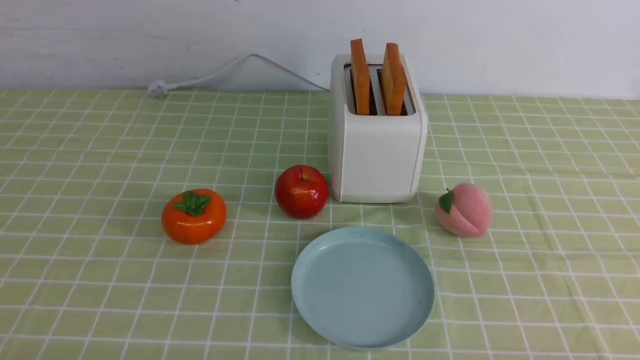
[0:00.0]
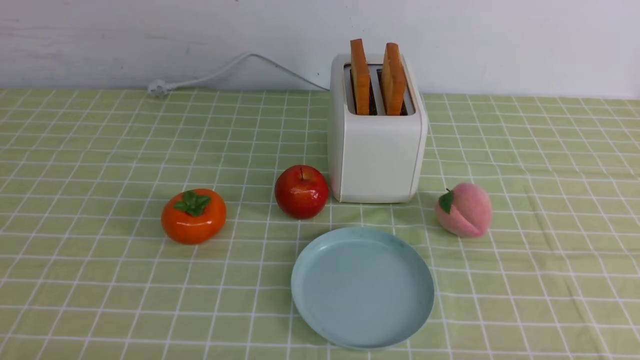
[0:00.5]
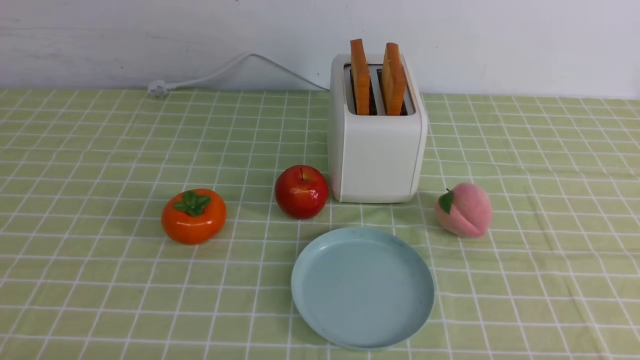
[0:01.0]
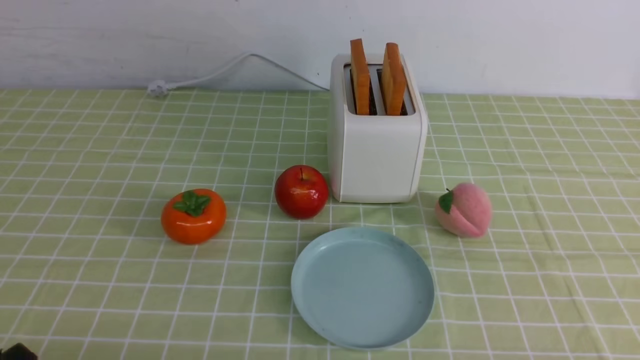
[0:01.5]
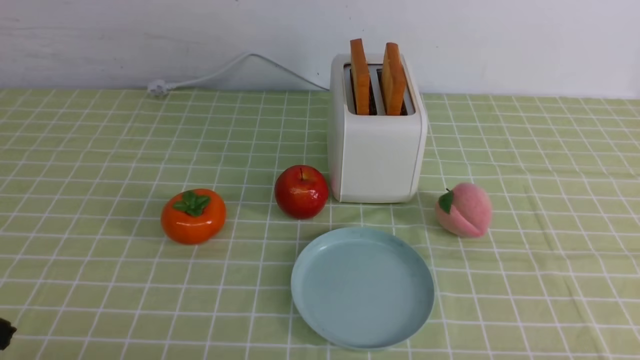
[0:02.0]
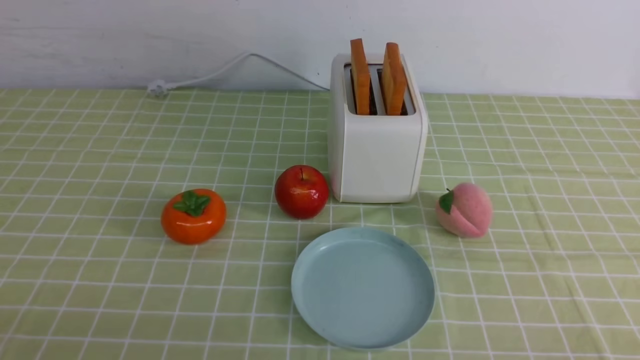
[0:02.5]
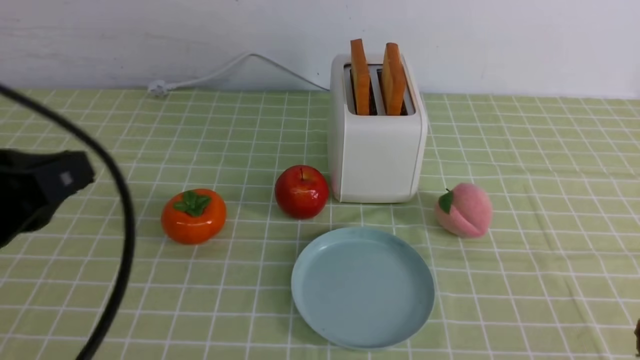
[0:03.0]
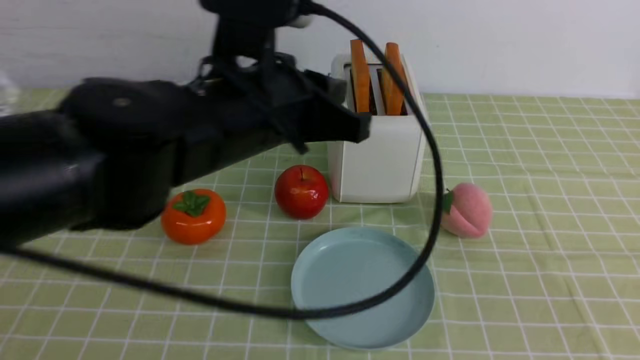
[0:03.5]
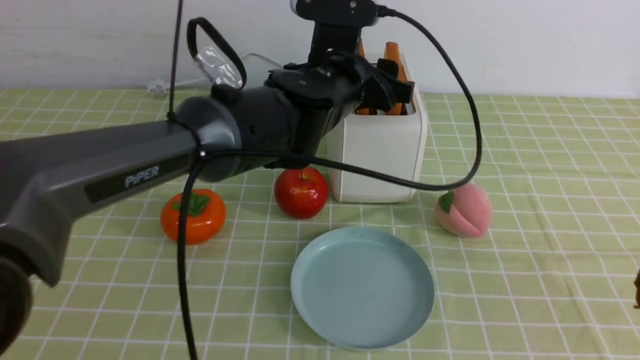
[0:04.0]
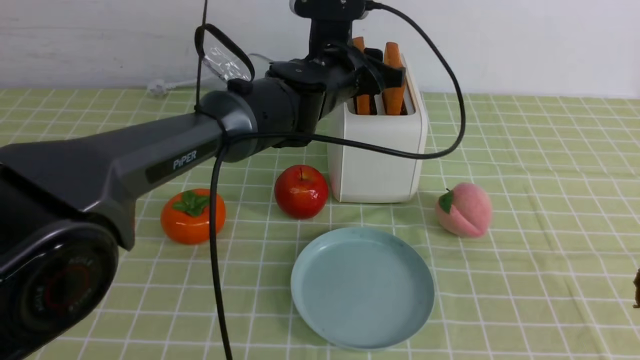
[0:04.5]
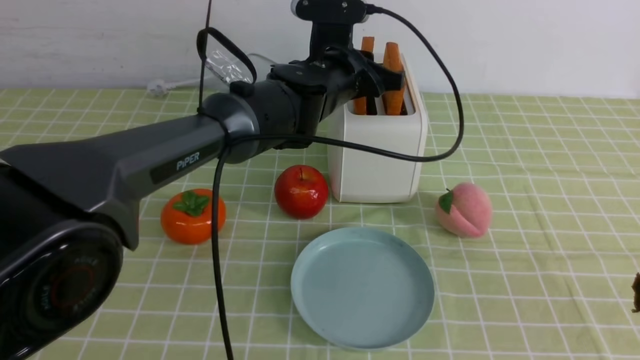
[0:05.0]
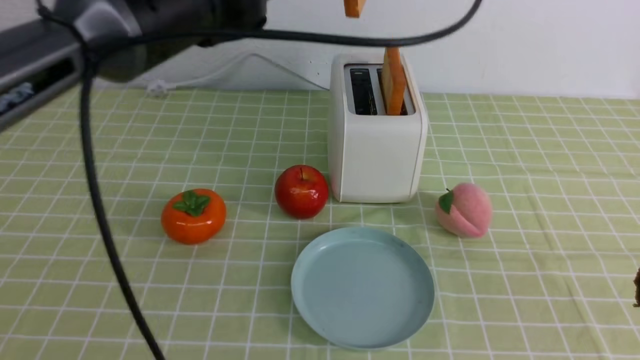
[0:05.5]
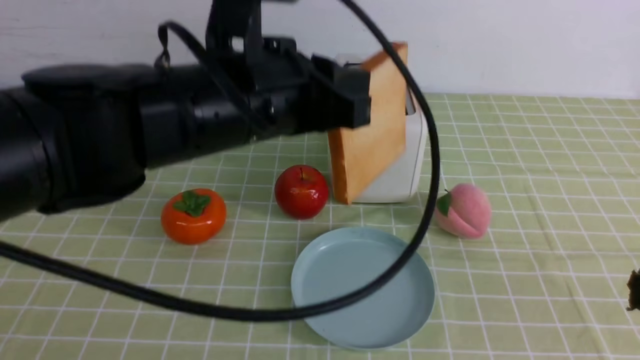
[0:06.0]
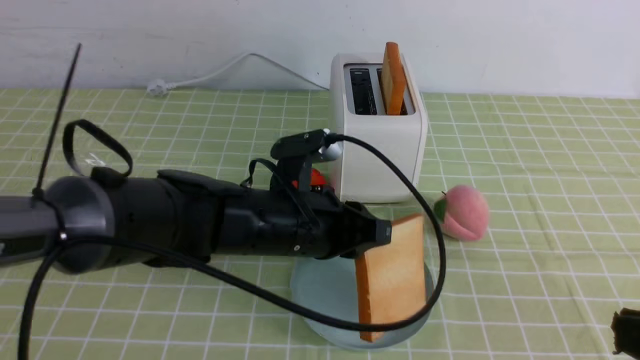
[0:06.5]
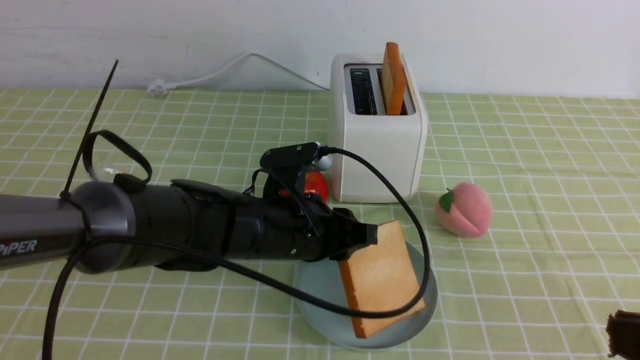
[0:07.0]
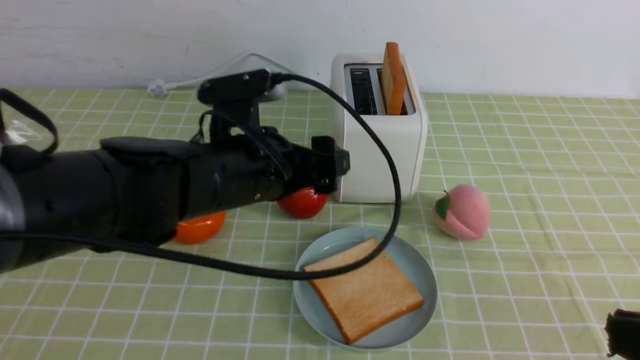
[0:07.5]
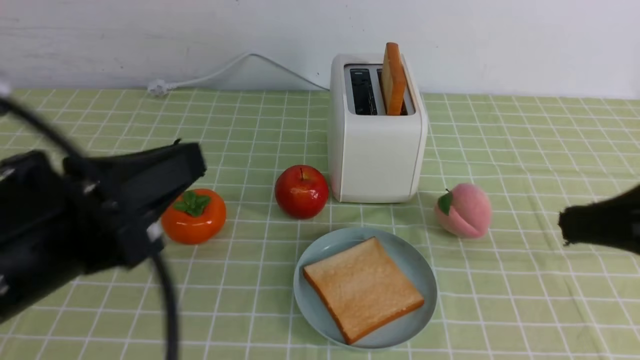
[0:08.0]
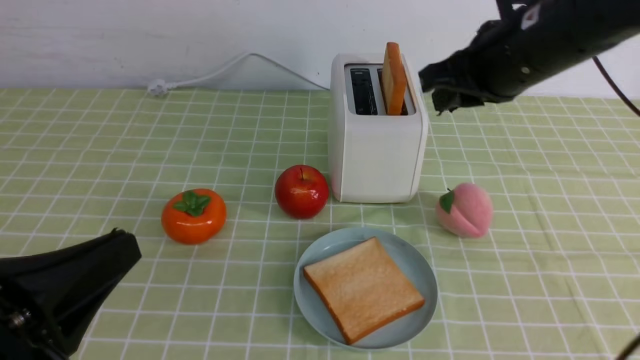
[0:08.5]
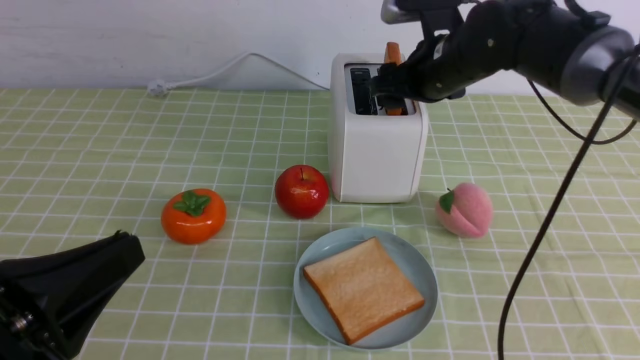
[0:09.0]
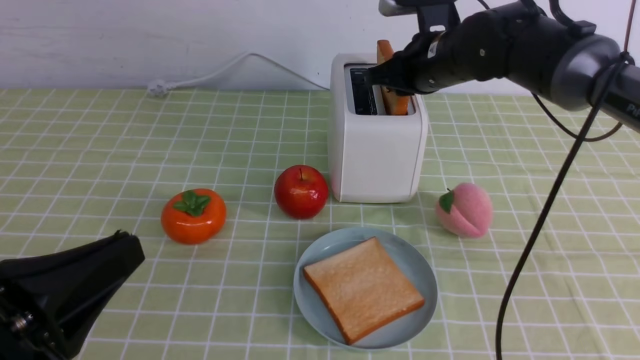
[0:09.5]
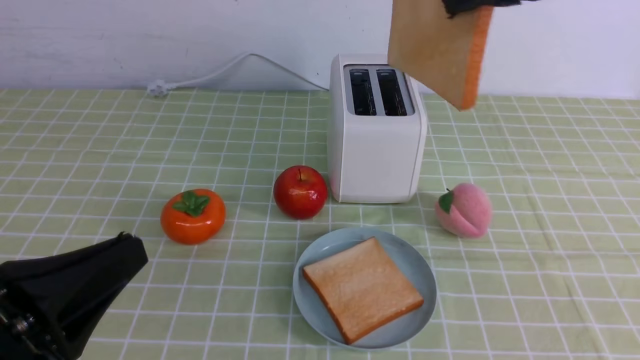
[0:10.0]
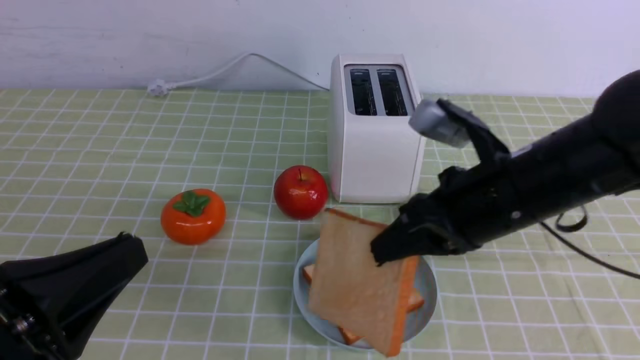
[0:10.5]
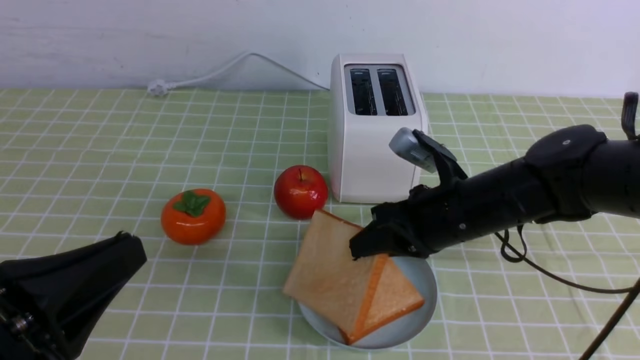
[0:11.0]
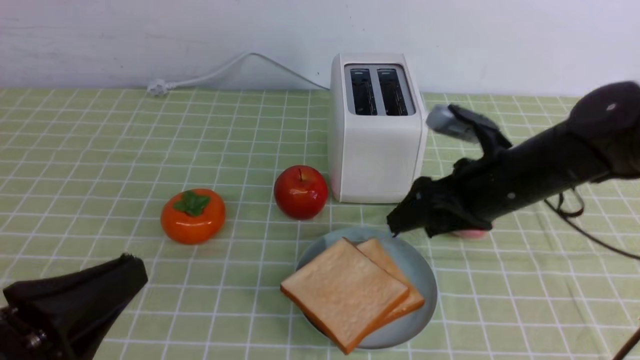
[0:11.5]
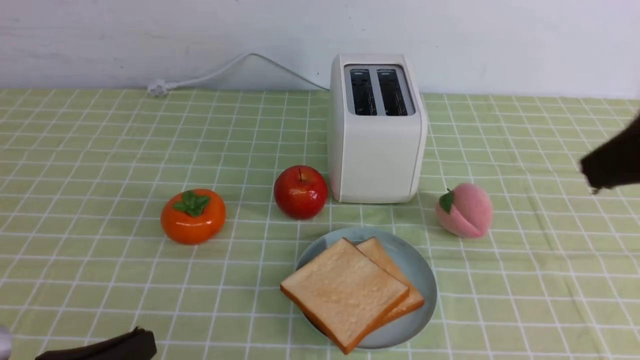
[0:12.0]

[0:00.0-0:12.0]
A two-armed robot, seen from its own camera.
Task of the whole recording: take toasted bread from bread machine on green coffee tablecloth place on plate.
Step, 0.0 to 5.0 s: use the left arm to take out a slice of bread.
Step, 5.5 to 7.0 s: use the left arm to put a slice of bread into the empty plate.
Step, 8.0 to 9.5 s: use the right arm to take out a slice of bread.
Step, 10.0 to 11.5 s: use the right arm to put a slice of bread into the plate.
2.0 to 4.0 s: The left gripper heads forward and to the right, covering roughly 40 cm, and opens up; the right gripper heads upward, covering about 15 cm, and closes up.
4.0 to 6.0 s: The left gripper shifts about 15 cm backward and to the left, and closes up.
6.0 to 8.0 s: The right gripper goes approximately 10 cm forward, while the left gripper goes some 20 cm backward and to the left, and opens, then closes once more.
8.0 to 10.0 s: The left gripper shifts by some 5 cm, while the right gripper is displaced forward, to the left and upward by roughly 15 cm, and opens, then closes once more.
10.0 to 12.0 s: The left gripper heads downward, covering some 5 cm. Meanwhile the right gripper goes some 15 cm backward and to the right, goes downward and returns, roughly 25 cm each way, and opens, then closes again.

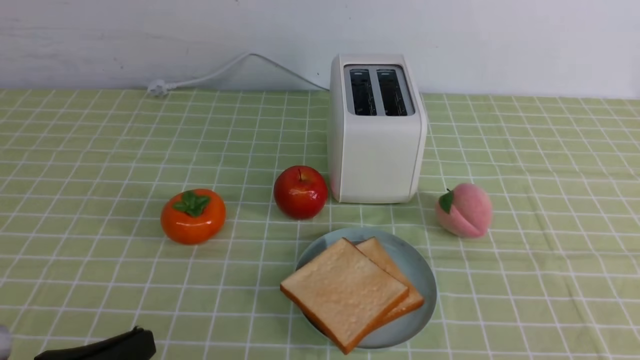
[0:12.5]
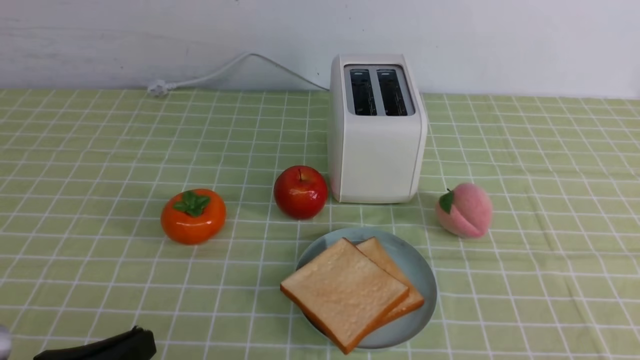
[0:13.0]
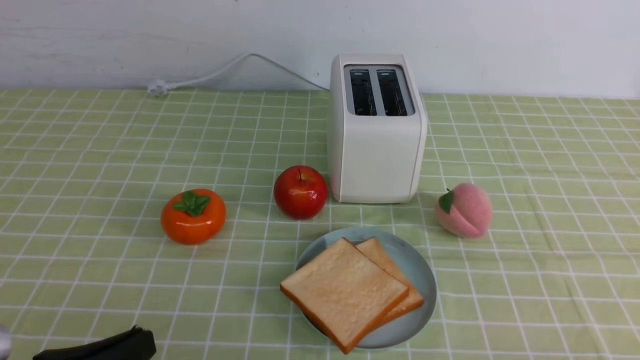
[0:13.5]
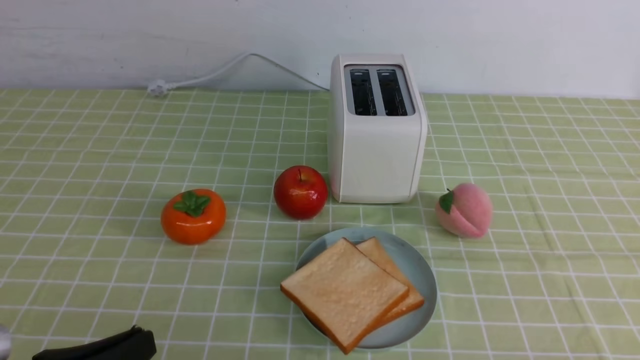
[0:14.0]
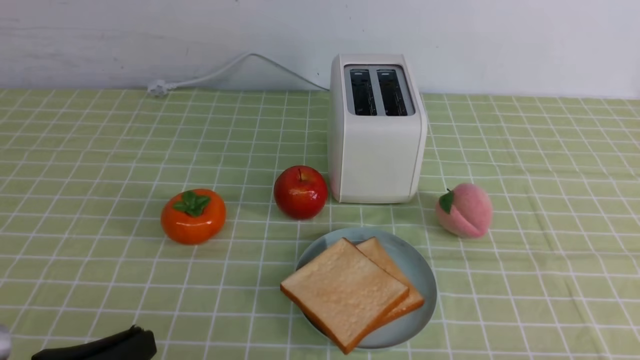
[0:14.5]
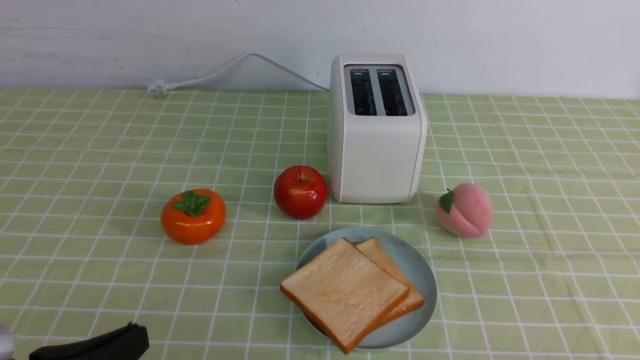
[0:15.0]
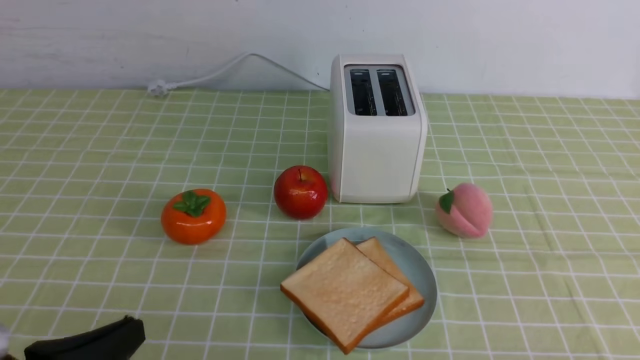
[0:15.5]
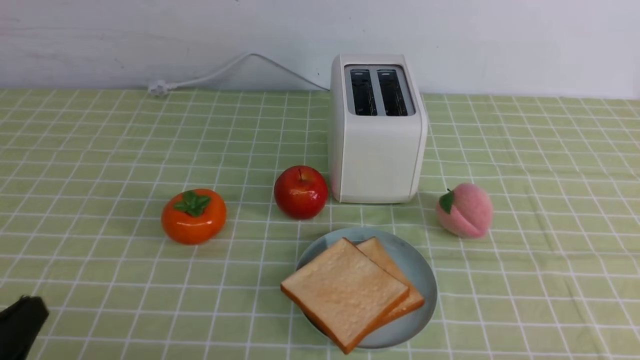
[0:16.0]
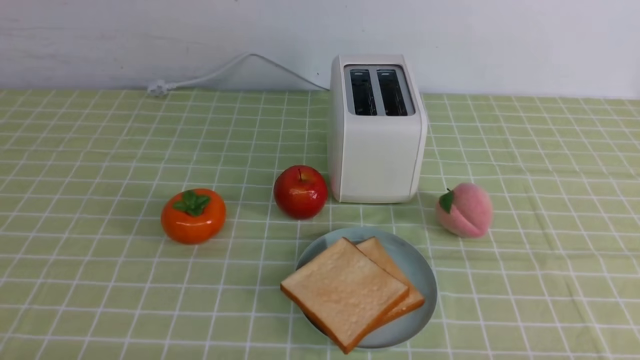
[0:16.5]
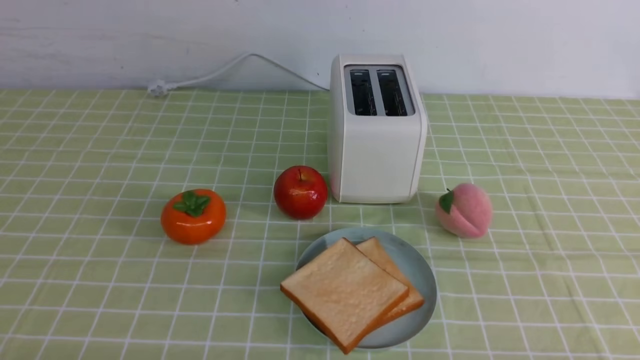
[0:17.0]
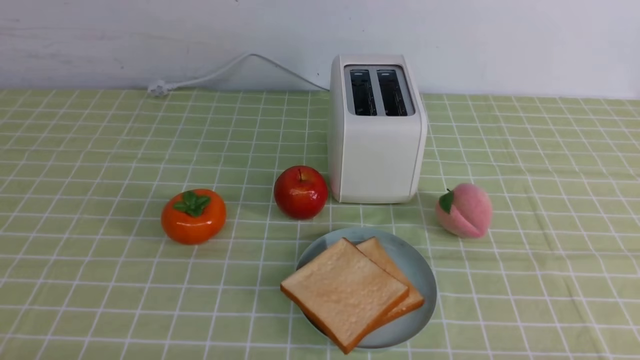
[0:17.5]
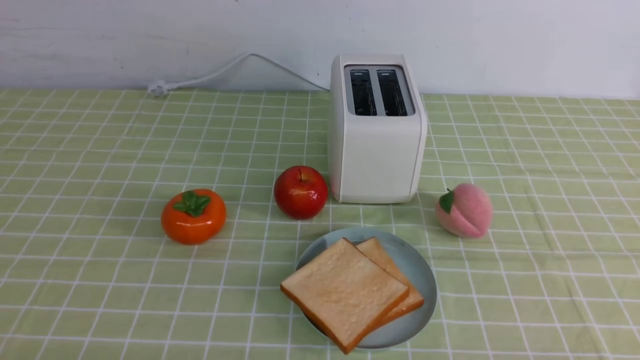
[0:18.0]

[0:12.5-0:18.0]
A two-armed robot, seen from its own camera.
Task of the whole recording: take toasted bread from bread machine on green coffee tablecloth place on plate.
14.5 to 16.0 s: The grippers stay close to where they were, moving slightly.
16.0 to 18.0 s: The grippers move only a little.

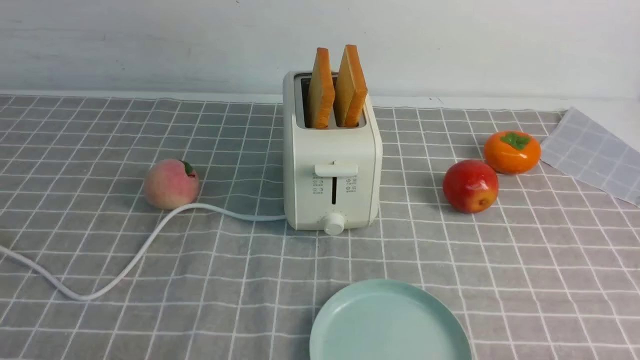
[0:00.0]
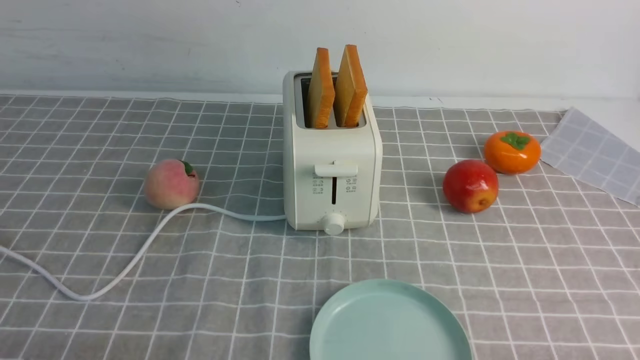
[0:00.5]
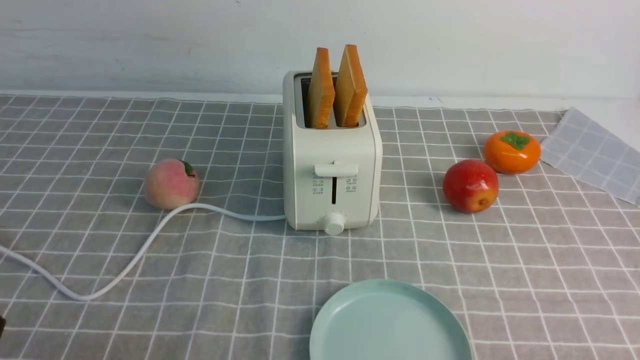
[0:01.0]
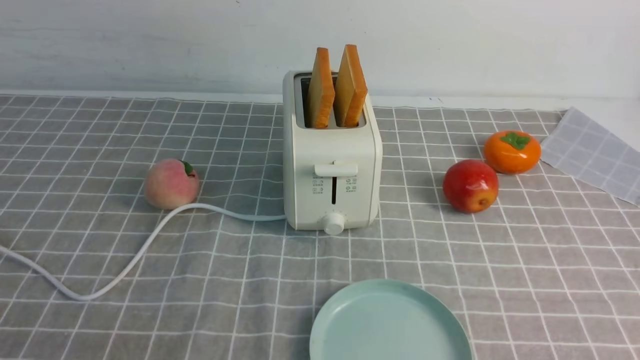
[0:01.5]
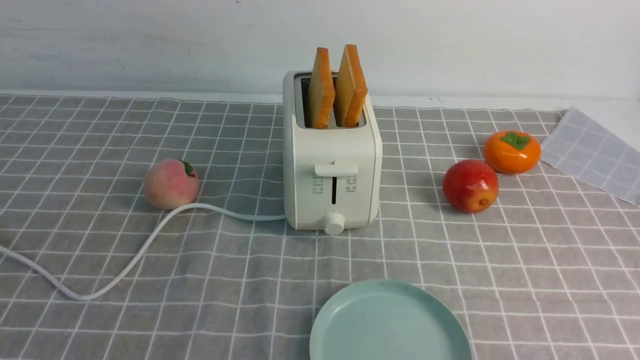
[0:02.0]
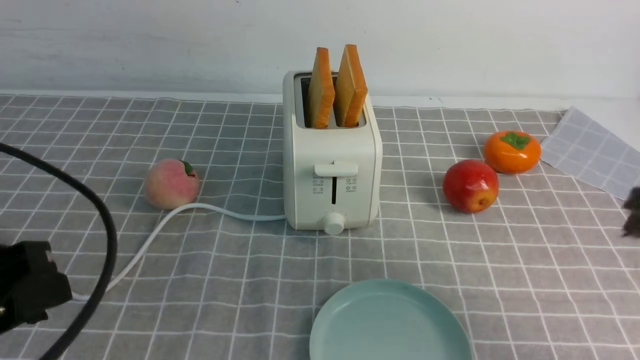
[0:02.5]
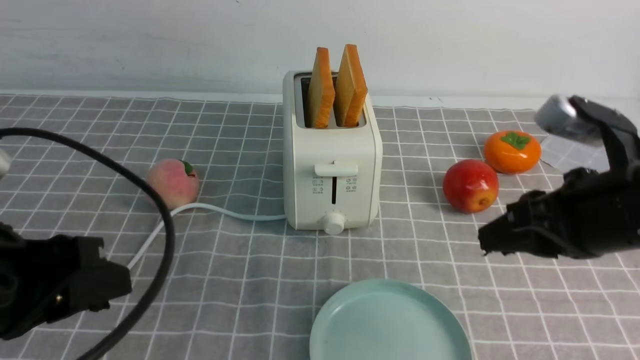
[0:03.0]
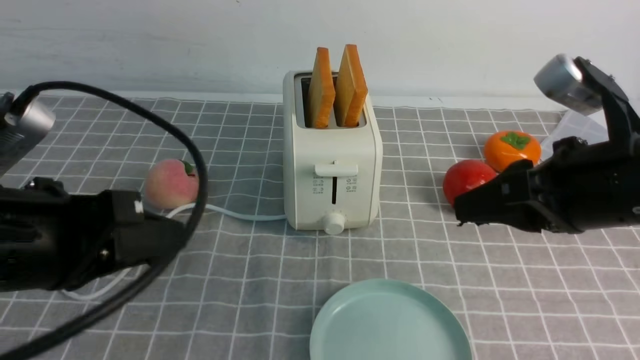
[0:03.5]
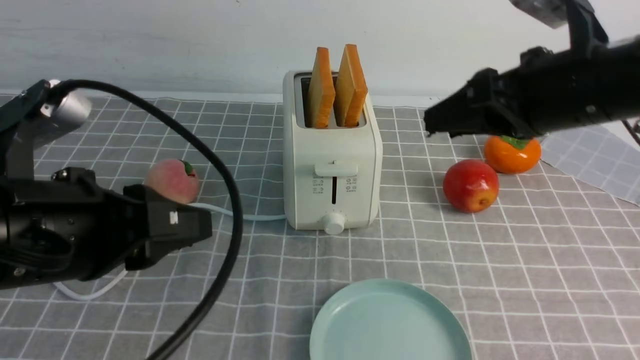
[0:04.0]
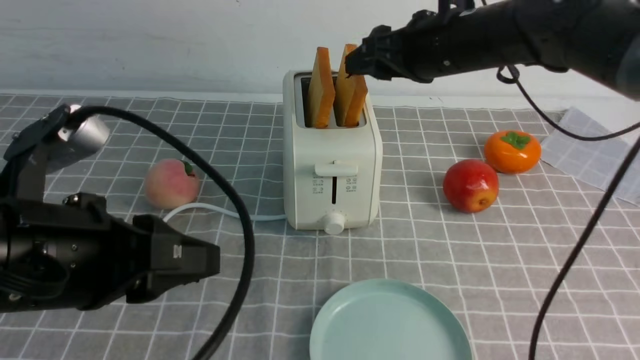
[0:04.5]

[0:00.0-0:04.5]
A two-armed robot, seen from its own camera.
Task of the whole recording: take toasted bread from bread machine on grey coffee table place on plate.
2.0 to 4.5 s: The left gripper moves to the right and forward, some 10 cm, while the right gripper travels forward and to the left by roughly 35 cm, and opens.
